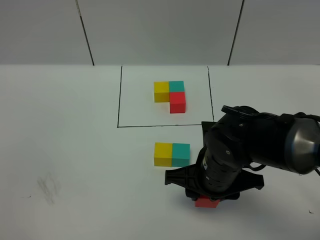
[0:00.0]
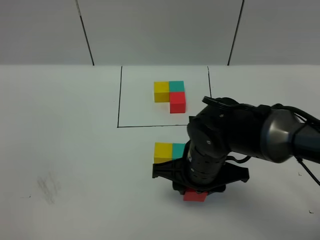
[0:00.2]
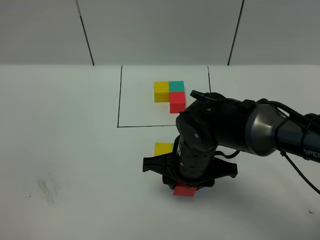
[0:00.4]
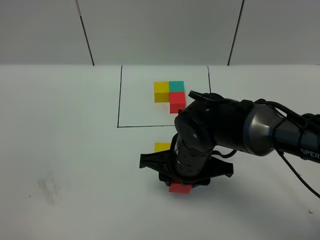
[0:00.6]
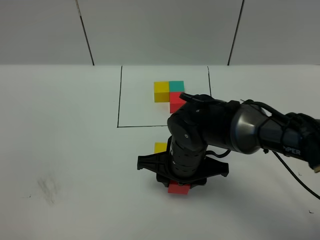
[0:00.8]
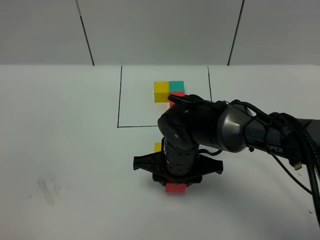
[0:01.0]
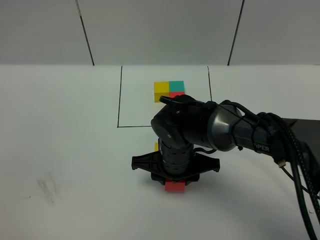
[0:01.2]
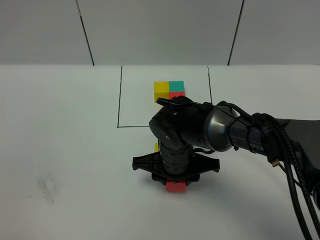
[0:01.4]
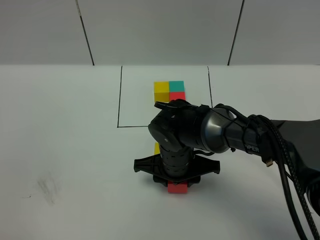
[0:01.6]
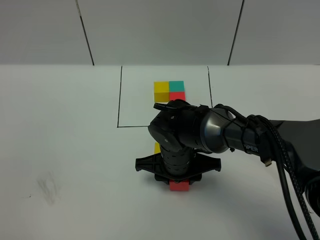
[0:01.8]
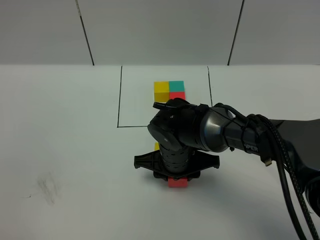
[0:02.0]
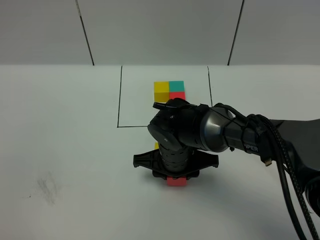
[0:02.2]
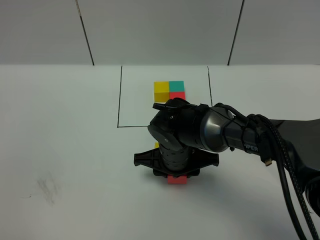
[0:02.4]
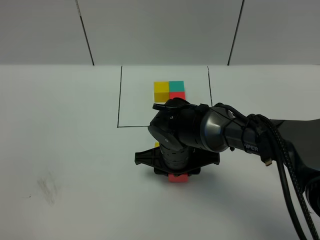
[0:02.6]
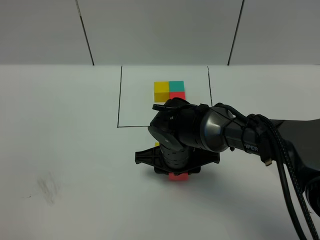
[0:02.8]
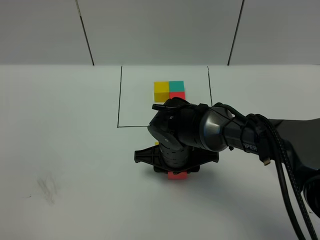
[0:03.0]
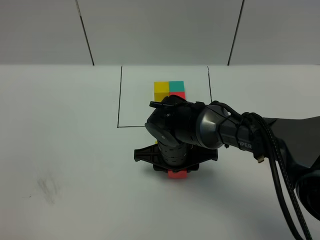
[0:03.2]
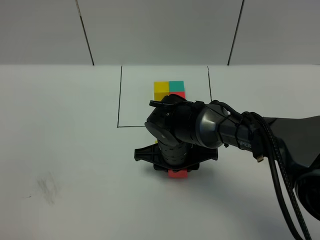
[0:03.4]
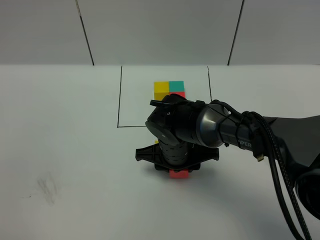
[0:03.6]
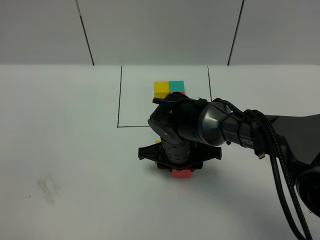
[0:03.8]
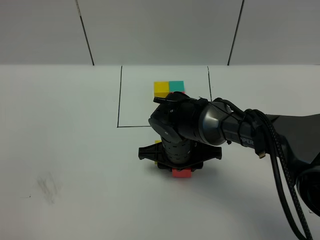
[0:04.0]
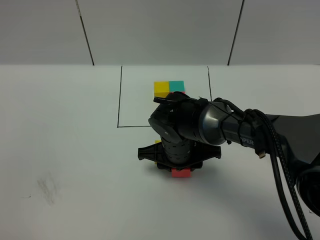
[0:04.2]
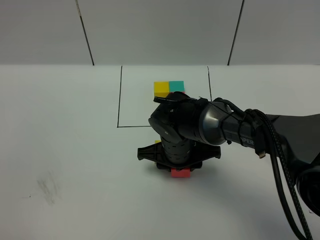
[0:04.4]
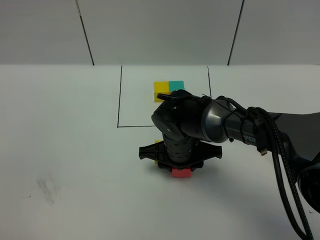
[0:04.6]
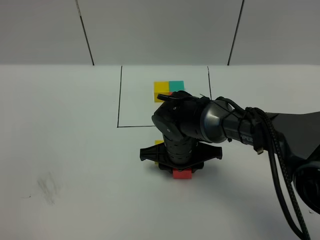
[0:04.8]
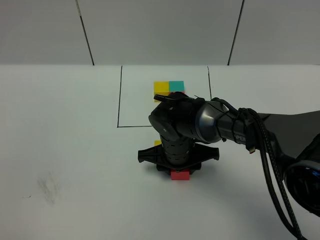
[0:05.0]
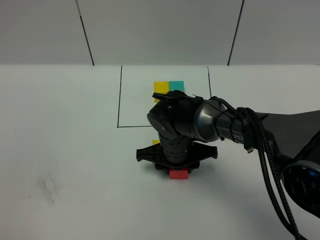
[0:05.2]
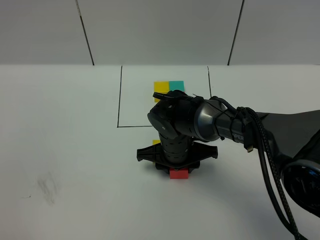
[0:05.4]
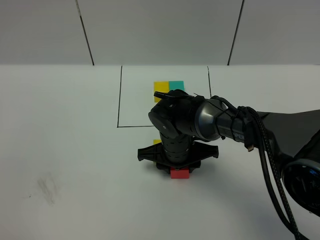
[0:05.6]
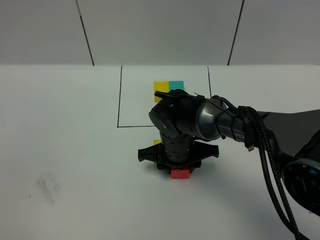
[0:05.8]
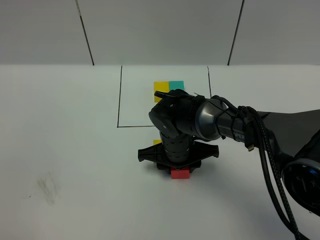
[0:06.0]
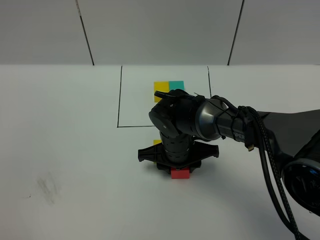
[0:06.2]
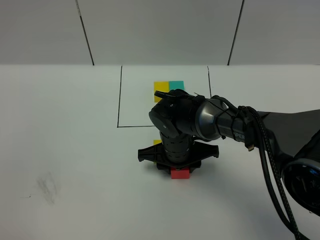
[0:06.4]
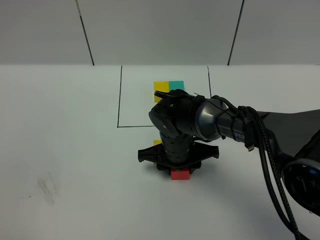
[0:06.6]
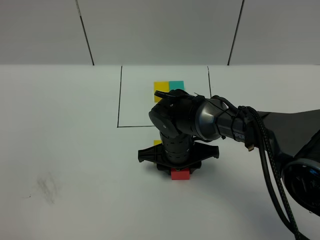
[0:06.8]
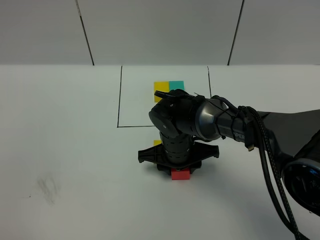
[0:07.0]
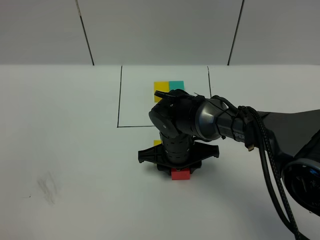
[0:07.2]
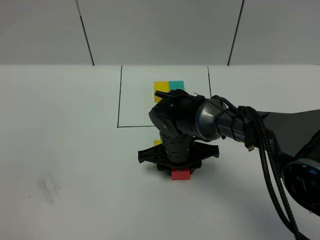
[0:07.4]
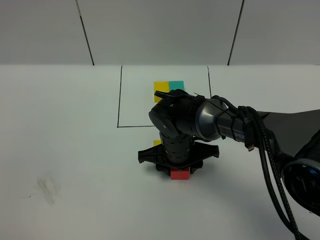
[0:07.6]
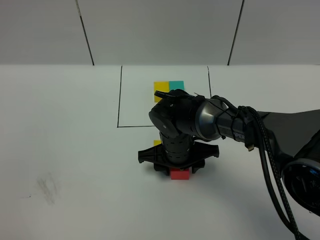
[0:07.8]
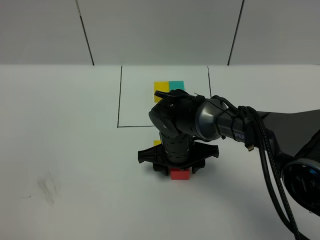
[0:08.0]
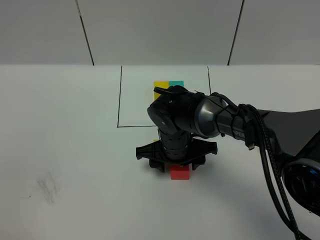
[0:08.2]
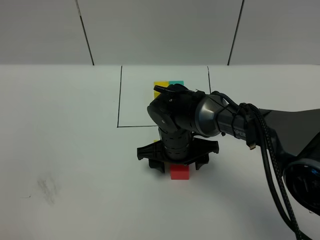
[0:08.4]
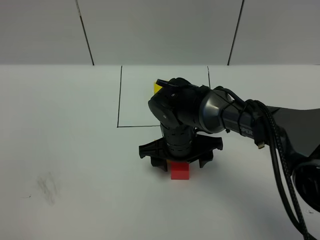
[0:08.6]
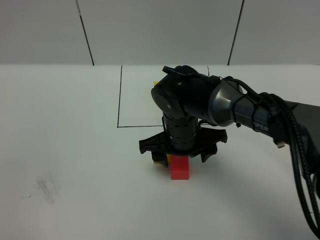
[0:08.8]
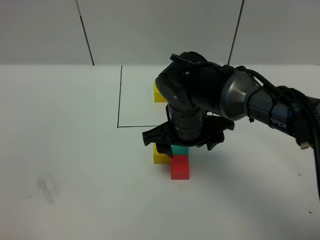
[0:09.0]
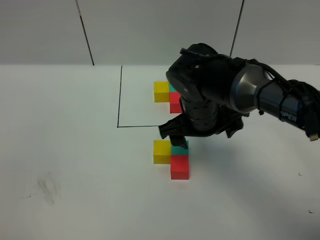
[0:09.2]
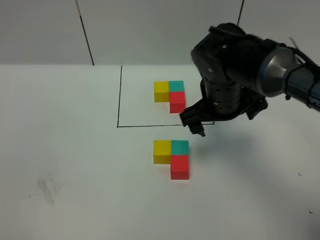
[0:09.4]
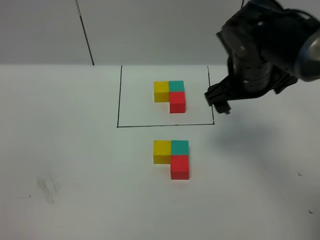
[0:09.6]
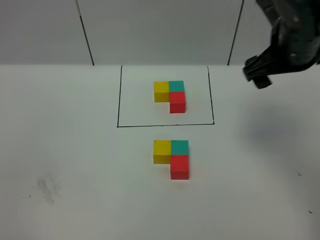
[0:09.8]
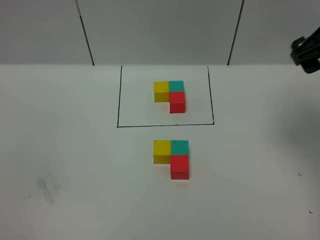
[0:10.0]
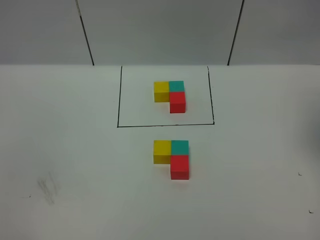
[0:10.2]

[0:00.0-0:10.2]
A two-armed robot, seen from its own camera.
Task of the whole recording: According to the building block template in front, assemble the scattered blocks together.
Step, 0:00.0 to 0:08.8: Put the red cube in the front of the green cube.
0:00.0 to 0:01.4: The right gripper shifts about 5 cm to the left.
0:01.4 to 0:03.0: There are only small adjustments of the grippers.
0:03.0 to 0:04.4: The two grippers keep their place.
0:04.4 to 0:05.8: The grippers move only a little.
0:05.8 to 0:07.2: The two grippers keep their place.
0:07.2 to 0:08.8: The right gripper goes about 5 cm upward, and opens its fingers.
0:08.8 to 0:10.2: The right gripper shifts some 35 cm to the right and upward, and opens.
